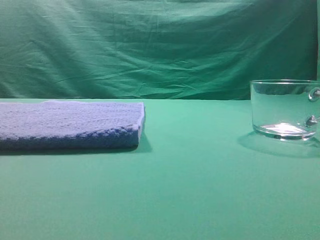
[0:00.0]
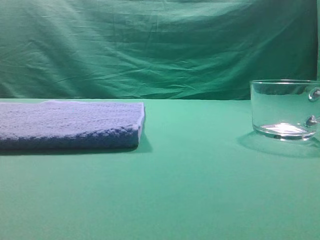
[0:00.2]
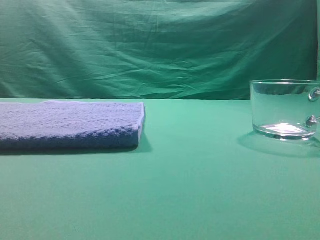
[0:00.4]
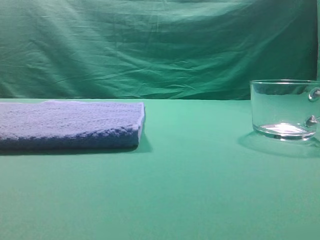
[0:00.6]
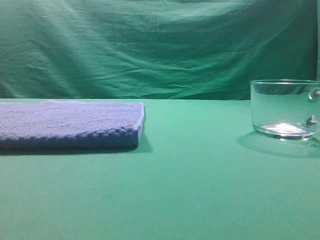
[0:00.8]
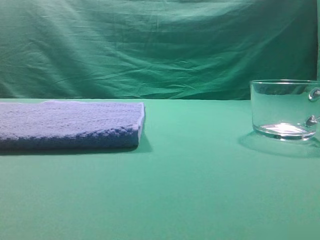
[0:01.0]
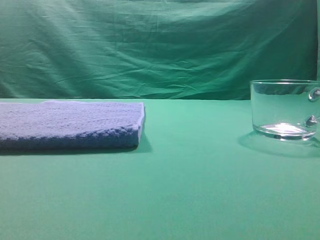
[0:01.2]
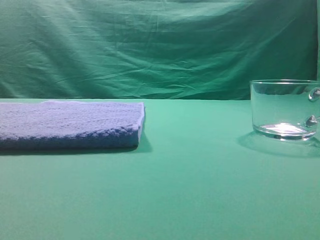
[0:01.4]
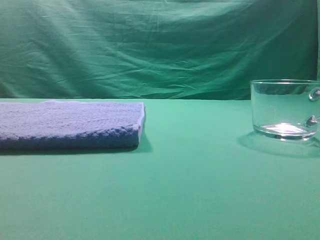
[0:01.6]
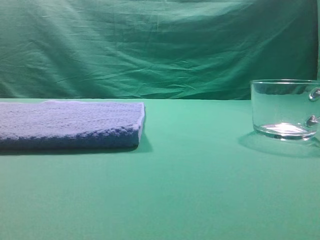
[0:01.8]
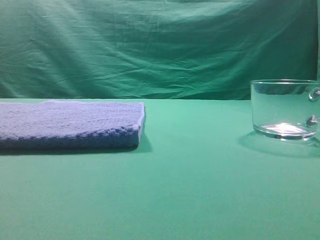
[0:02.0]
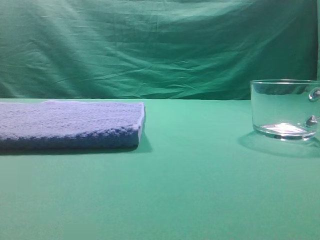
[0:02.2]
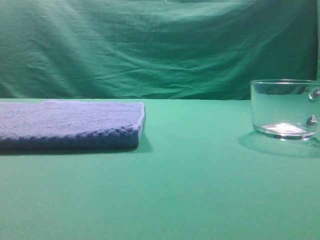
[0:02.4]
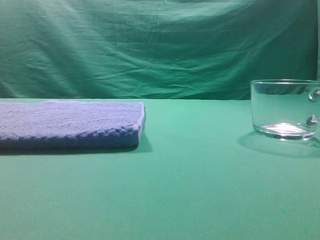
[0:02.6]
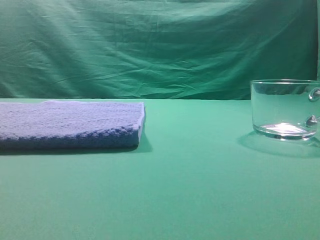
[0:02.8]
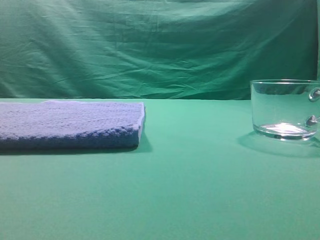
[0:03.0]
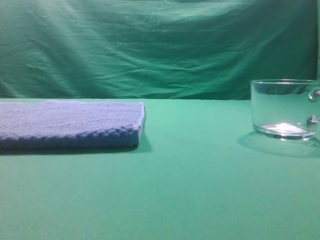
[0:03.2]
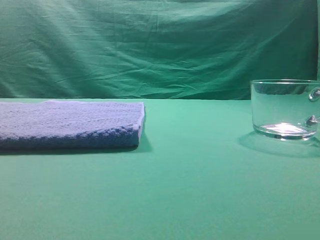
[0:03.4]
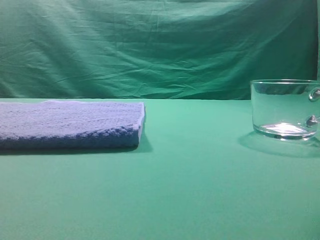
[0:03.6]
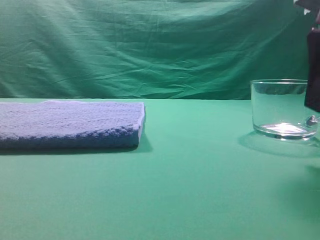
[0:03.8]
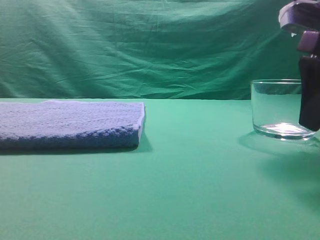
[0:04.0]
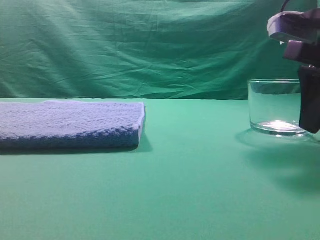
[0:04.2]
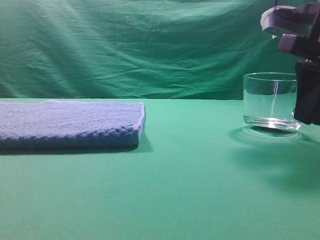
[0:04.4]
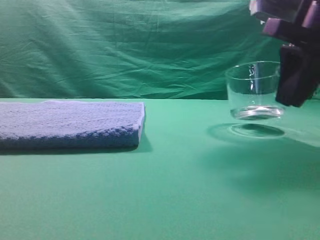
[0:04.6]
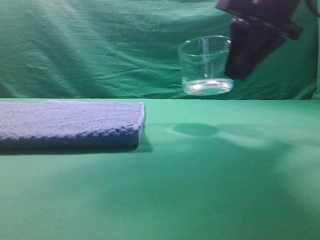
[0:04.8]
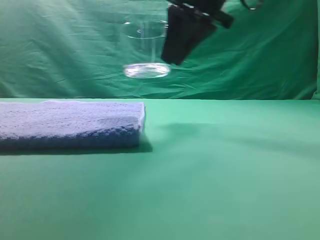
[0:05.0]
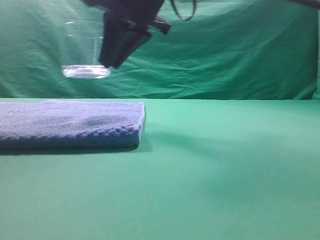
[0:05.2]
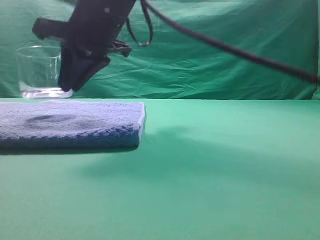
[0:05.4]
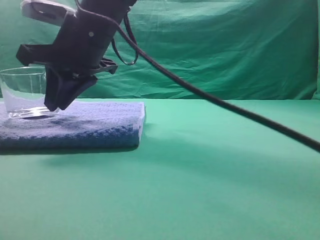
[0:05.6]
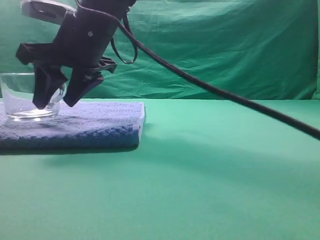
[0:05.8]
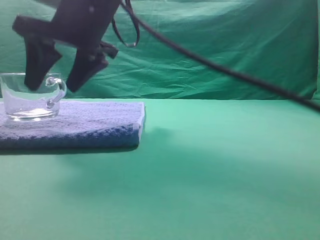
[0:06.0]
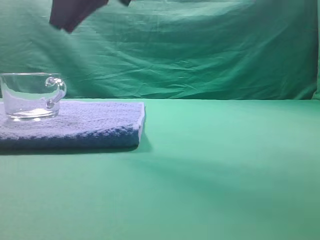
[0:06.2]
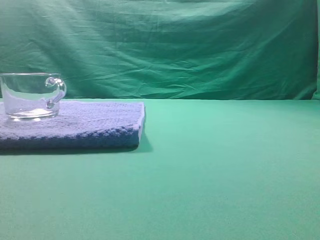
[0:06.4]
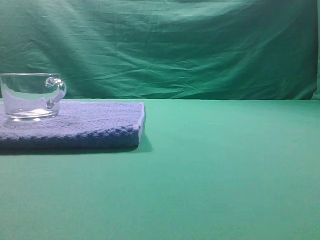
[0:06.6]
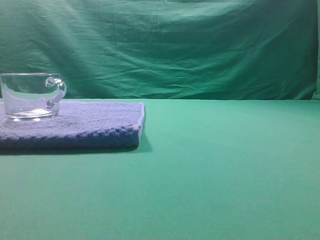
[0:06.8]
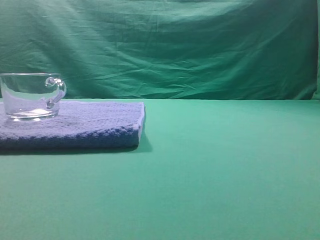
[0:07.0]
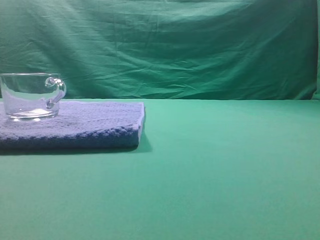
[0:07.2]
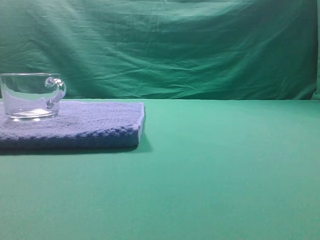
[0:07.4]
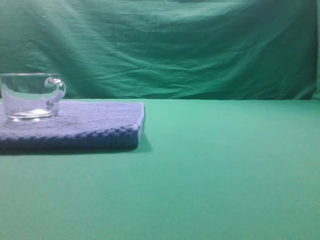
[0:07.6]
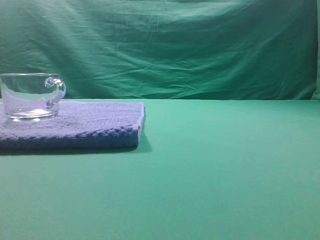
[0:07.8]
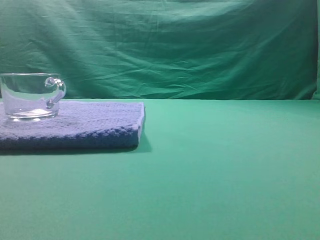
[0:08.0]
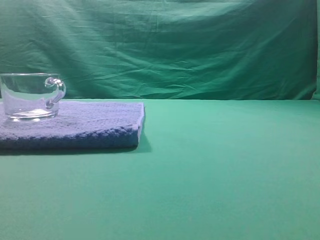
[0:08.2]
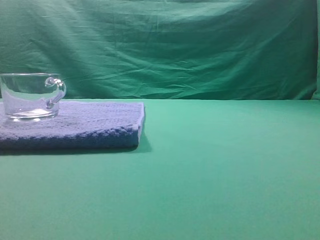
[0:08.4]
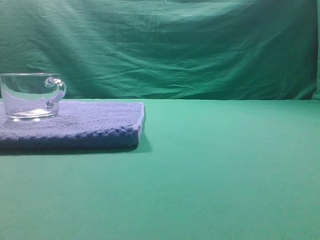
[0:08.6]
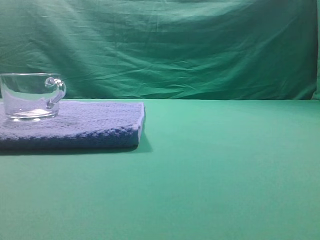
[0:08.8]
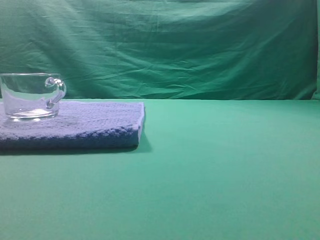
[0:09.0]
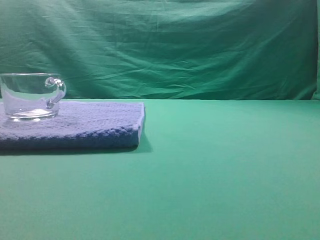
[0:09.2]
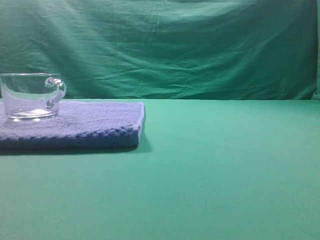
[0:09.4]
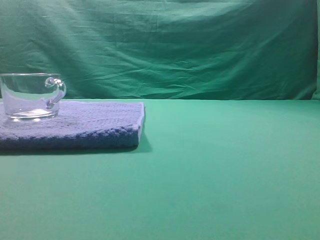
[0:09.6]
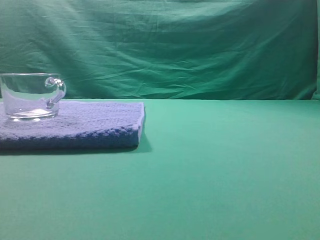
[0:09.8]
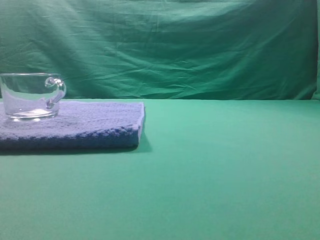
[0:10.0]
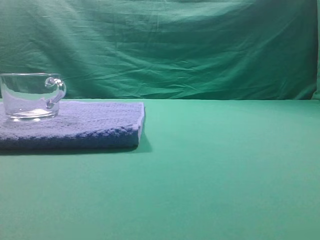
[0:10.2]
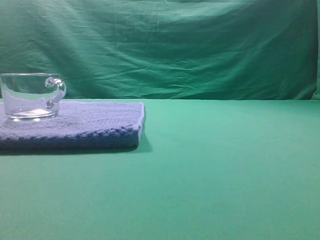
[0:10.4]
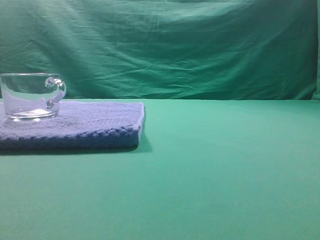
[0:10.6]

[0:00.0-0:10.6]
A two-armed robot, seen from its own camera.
Task of the whole recording: grasp the transparent glass cup and place it within the blue towel.
Step, 0:00.0 to 0:04.6: Grasp the transparent glass cup.
Step, 0:04.8 to 0:06.0: Place the glass cup on the blue zone.
